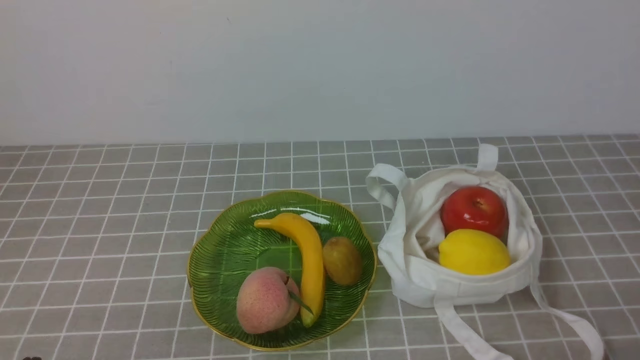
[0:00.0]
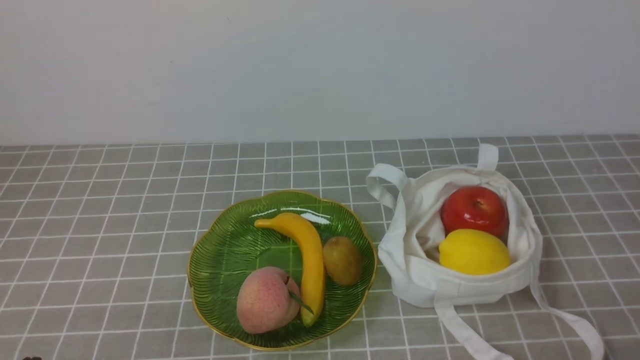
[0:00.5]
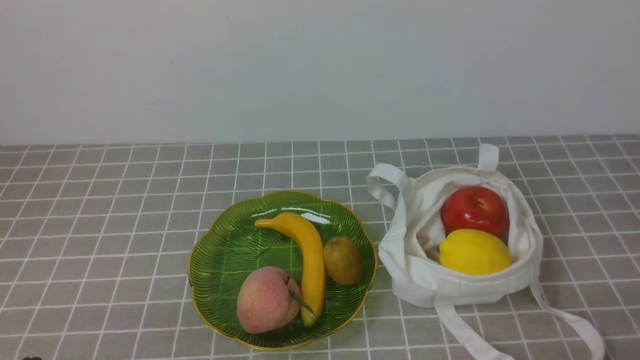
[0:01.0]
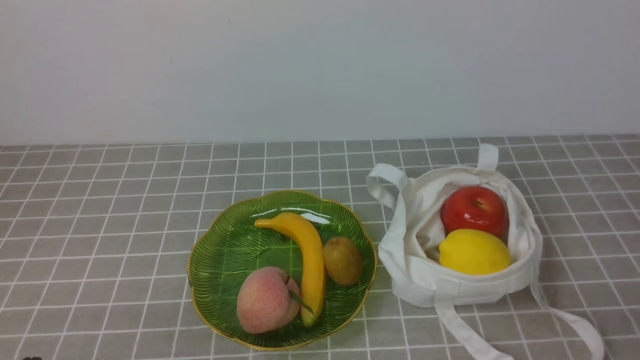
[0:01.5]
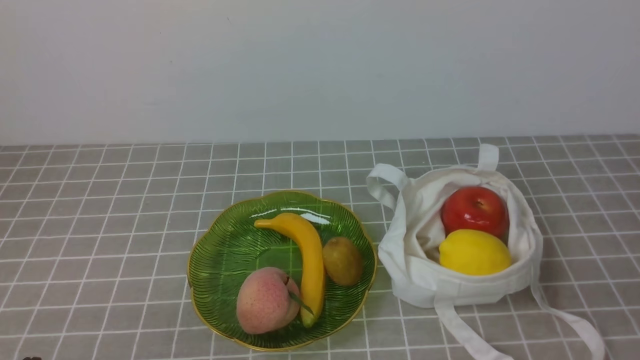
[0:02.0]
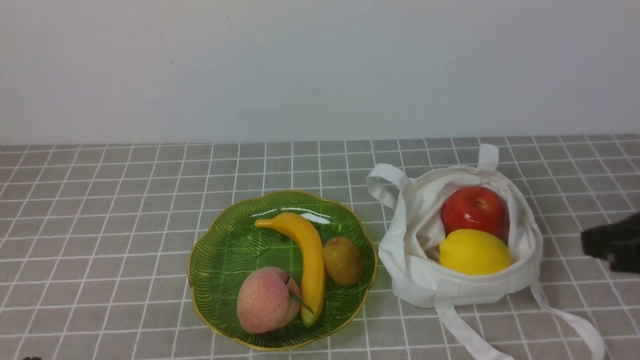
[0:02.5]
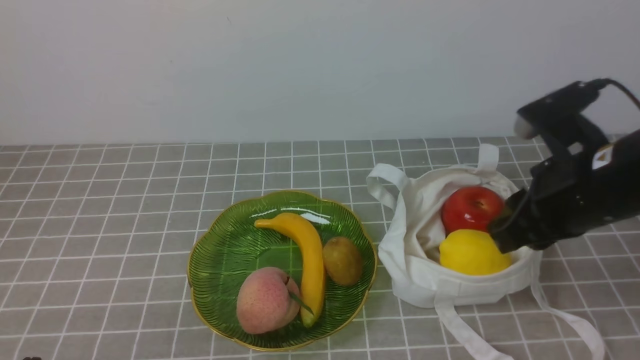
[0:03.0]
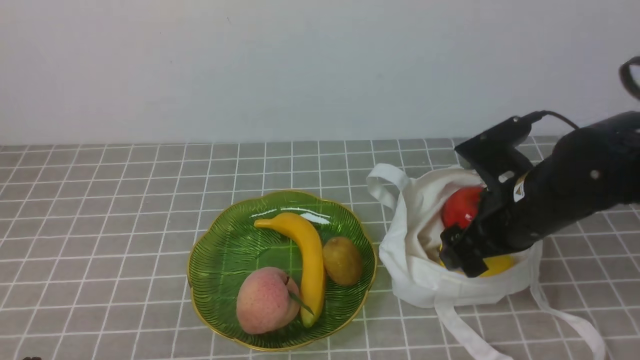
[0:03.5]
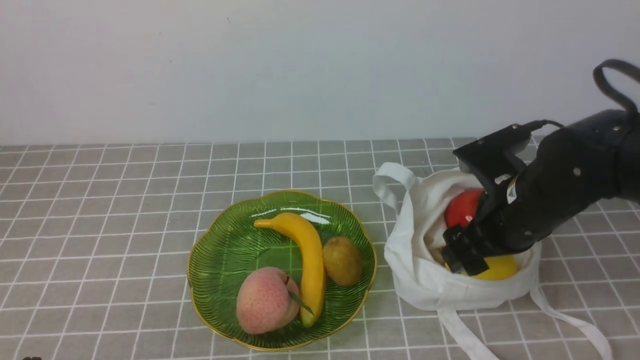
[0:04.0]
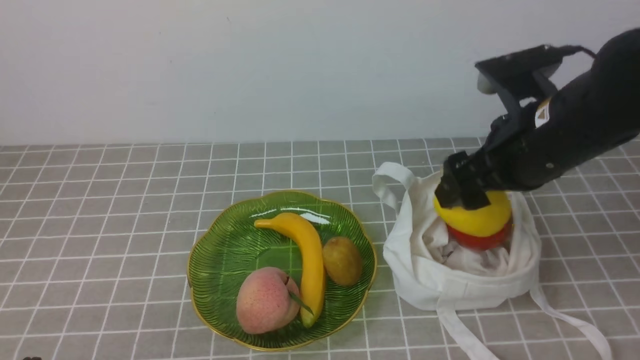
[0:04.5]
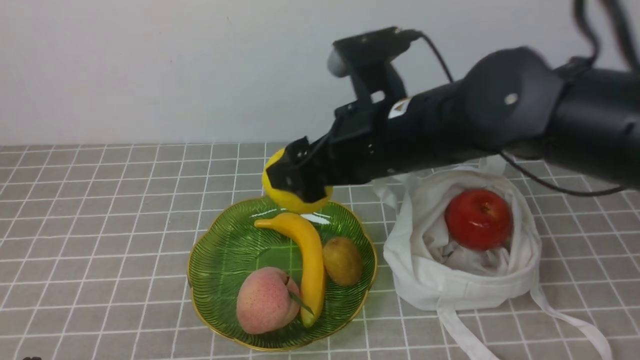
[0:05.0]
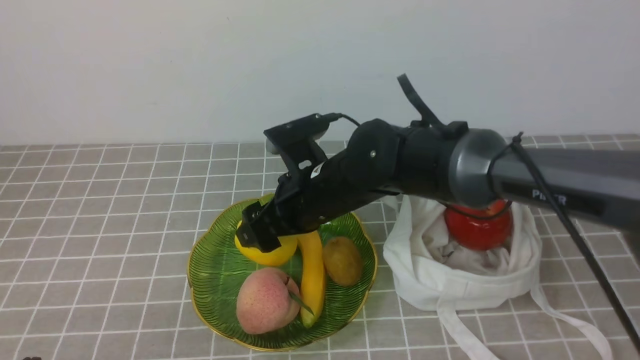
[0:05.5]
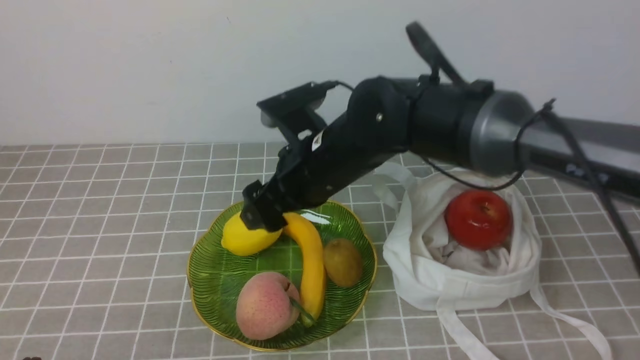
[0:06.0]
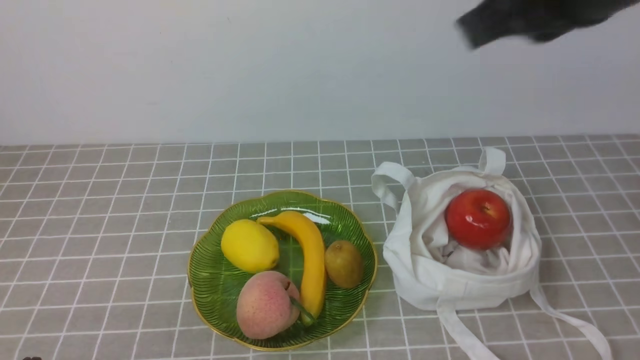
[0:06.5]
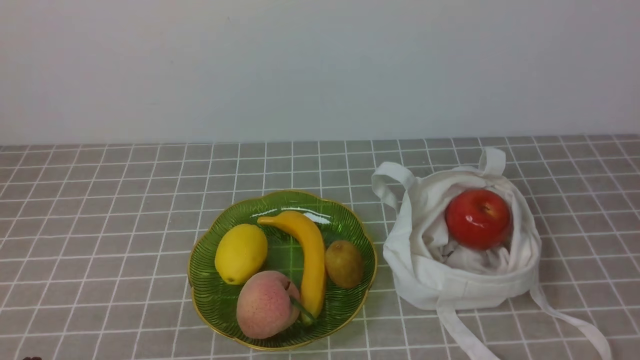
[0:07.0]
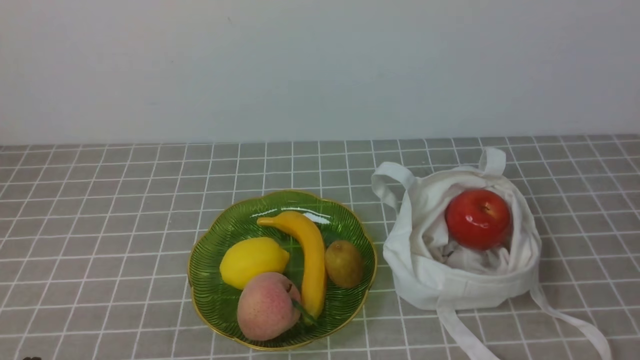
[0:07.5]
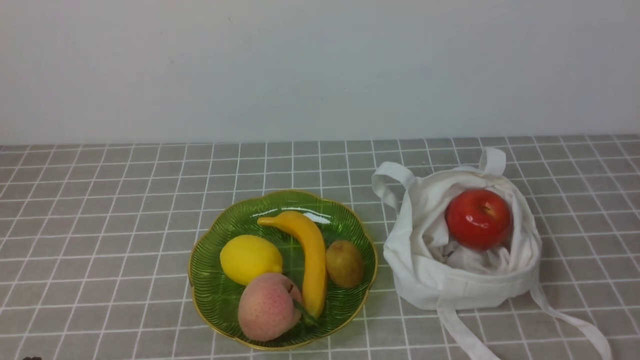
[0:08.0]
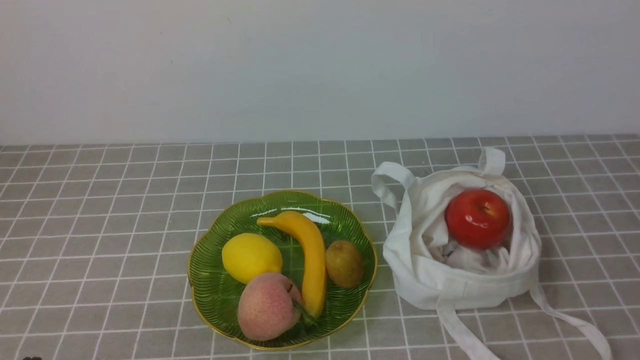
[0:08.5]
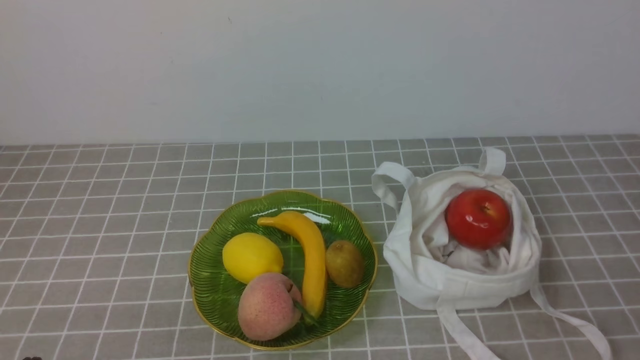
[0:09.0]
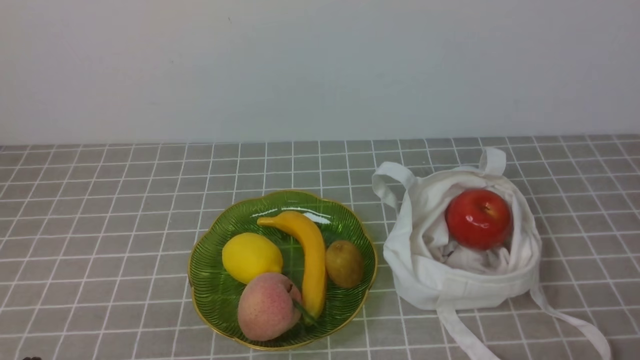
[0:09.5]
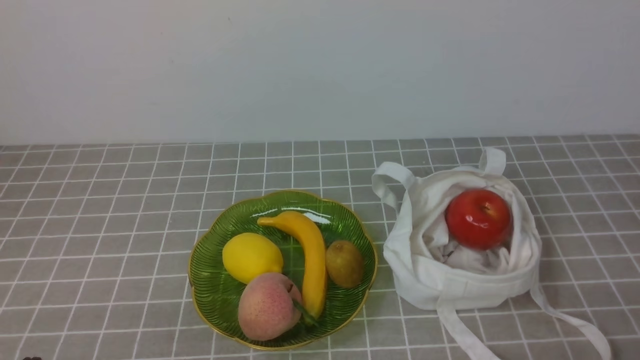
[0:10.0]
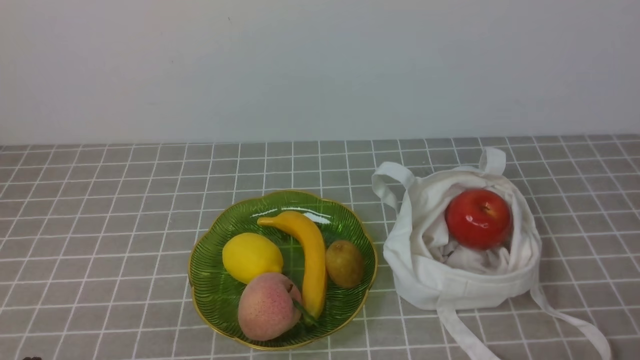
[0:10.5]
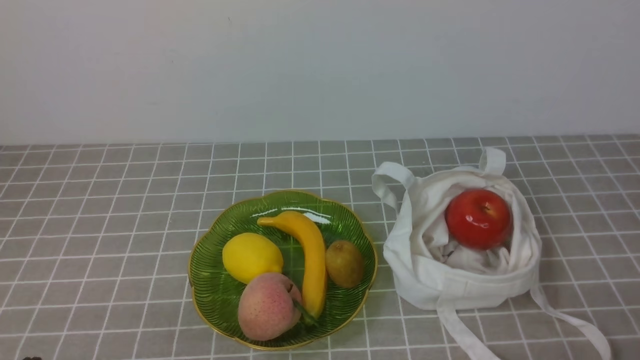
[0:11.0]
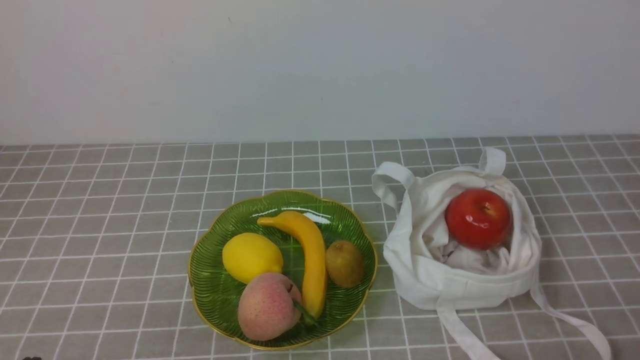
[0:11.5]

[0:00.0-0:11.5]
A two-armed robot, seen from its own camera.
Step, 0:00.0 to 0:04.5: use the right arm to grab a lemon from the bag.
Step, 0:05.0 to 0:05.5: use the right arm to put the lemon into the empty plate on the left.
0:02.0 to 0:04.0: The right gripper is displaced forward and to the left by about 25 cm, and opens its fingers.
0:04.0 to 0:06.0: The right gripper goes some 15 cm to the left.
0:06.0 to 0:07.5: The right gripper travels backward and to the right by roughly 40 cm, and closes its fingers.
0:09.5 to 0:11.5: Both grippers stay put.
